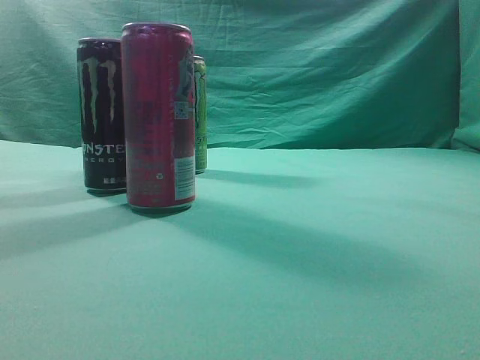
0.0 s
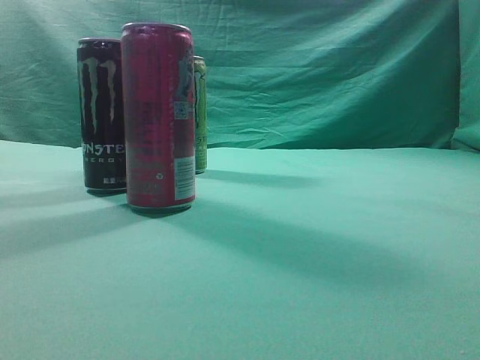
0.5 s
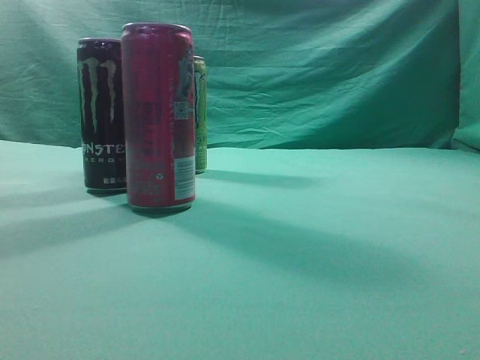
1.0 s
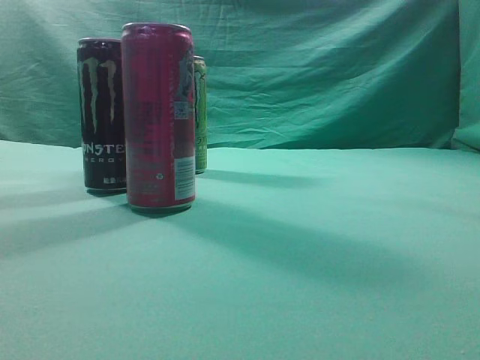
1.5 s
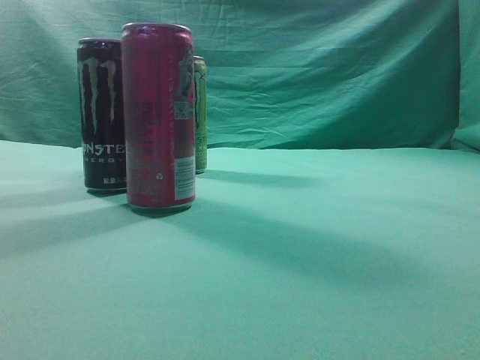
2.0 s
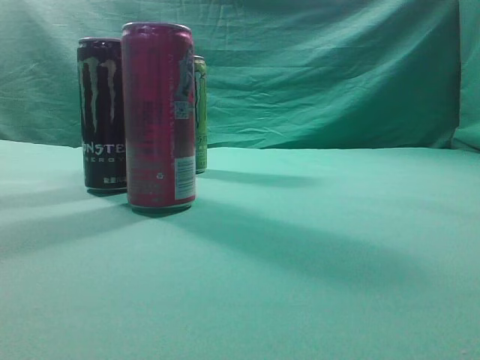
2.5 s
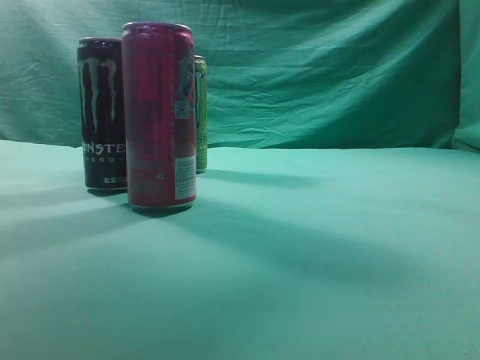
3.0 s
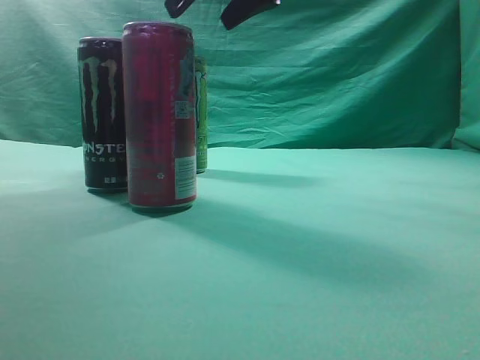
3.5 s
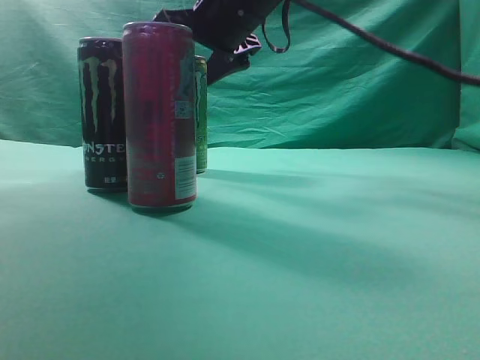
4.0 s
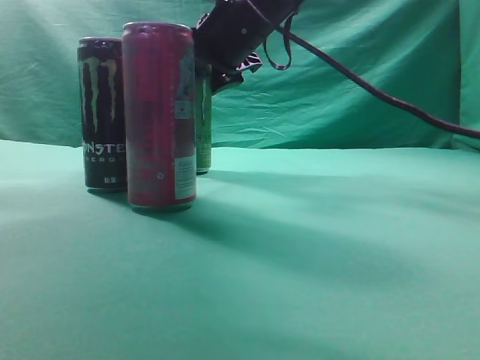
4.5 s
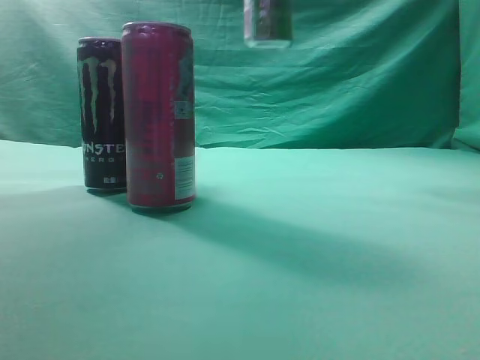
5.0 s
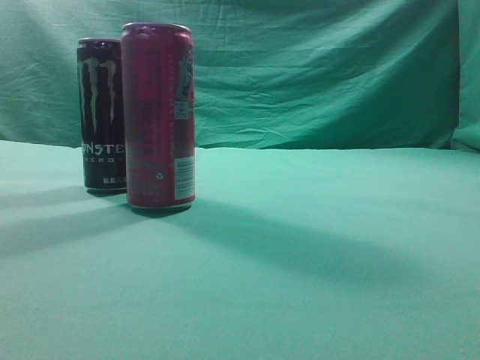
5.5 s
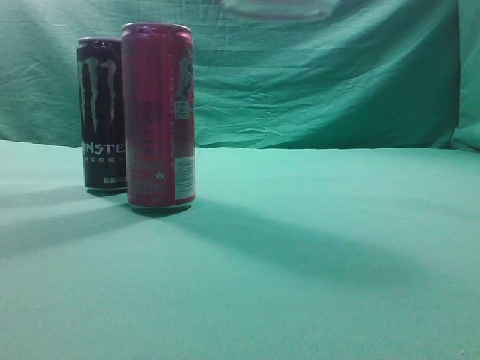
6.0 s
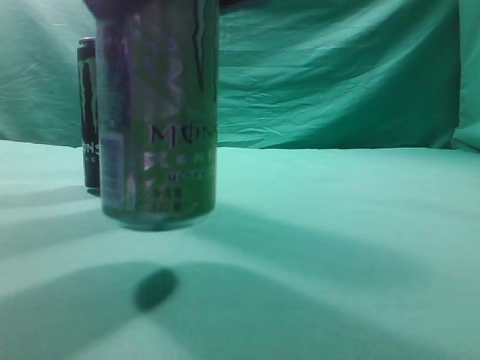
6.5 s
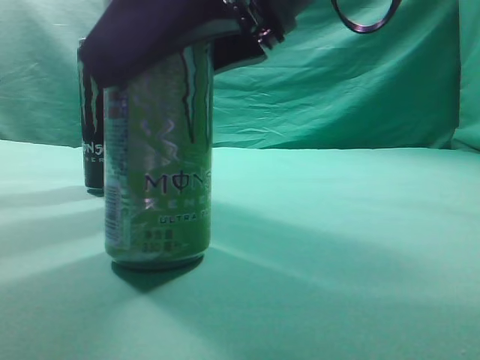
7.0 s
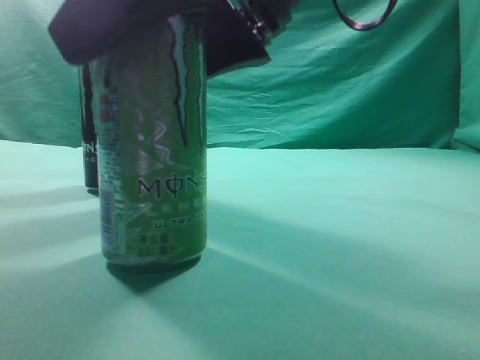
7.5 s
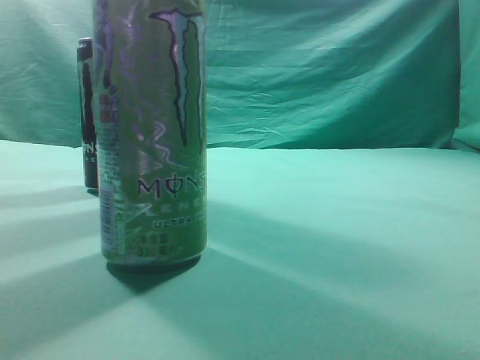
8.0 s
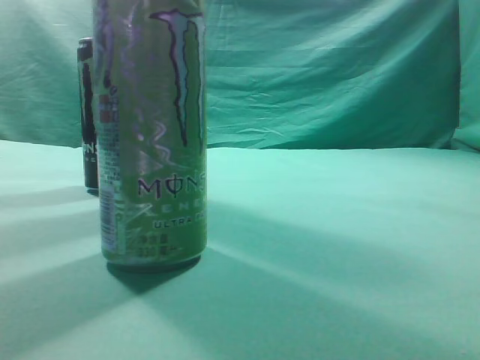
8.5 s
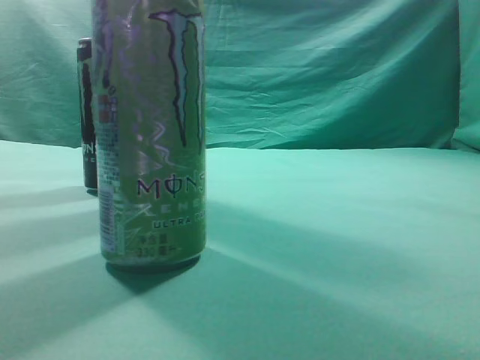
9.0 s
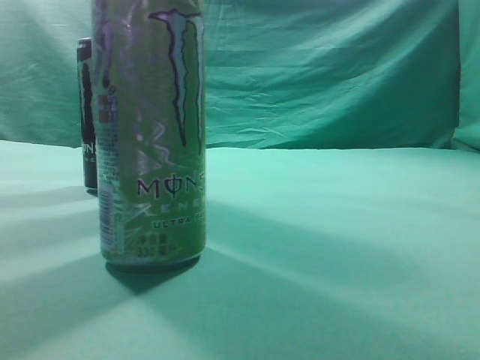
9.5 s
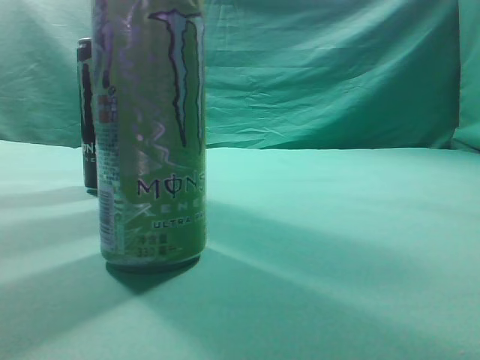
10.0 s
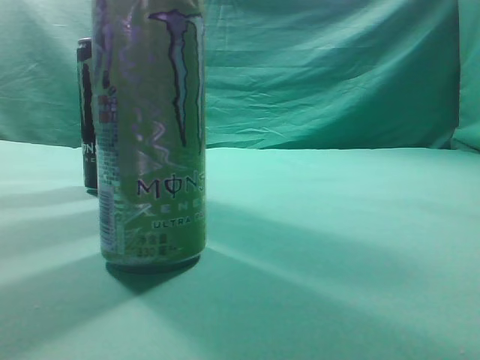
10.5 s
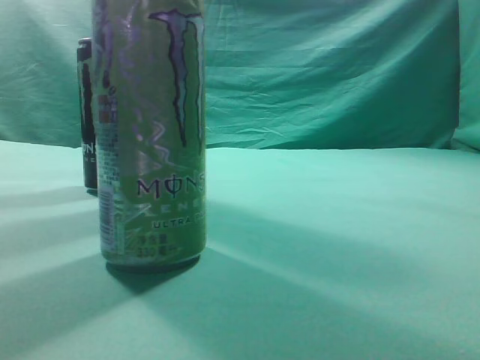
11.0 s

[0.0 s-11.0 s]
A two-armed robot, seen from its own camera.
Task of the whole recording: move one drink among three beverages.
Step, 0.0 to 4.5 s: Grasp the beverage bottle placed at the back of the desk.
Step, 5.0 to 7.5 s: Place the beverage bottle to the front of the table.
2.0 to 3.5 s: The right gripper heads forward and to the left, covering about 40 cm, and opens up.
3.5 to 5.5 s: The right gripper heads backward, upward and to the right, covering approximately 25 cm.
5.5 to 7.5 s: The right gripper travels downward and to the left by some 25 cm.
7.5 to 9.0 s: The right gripper travels to the right, upward and backward by roughly 30 cm, and closes its fingers.
